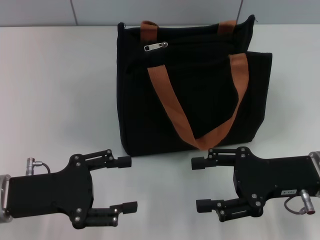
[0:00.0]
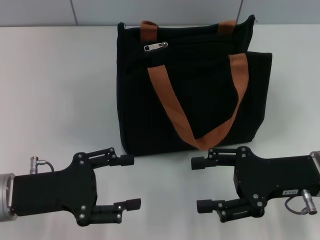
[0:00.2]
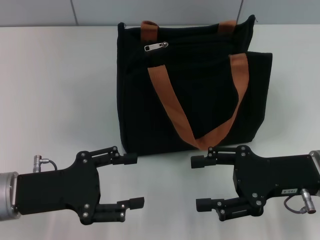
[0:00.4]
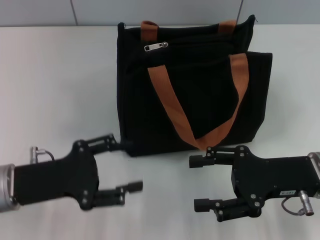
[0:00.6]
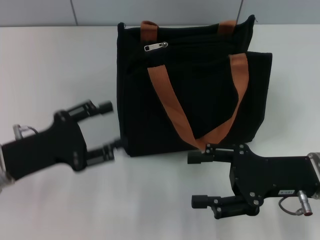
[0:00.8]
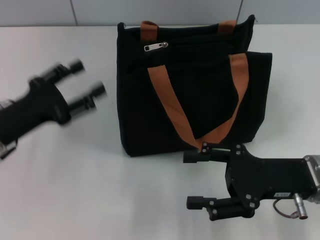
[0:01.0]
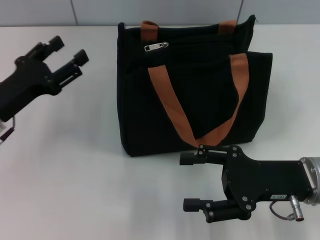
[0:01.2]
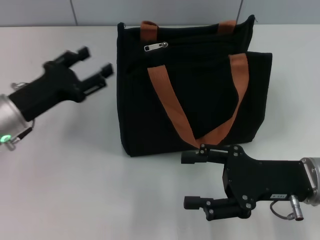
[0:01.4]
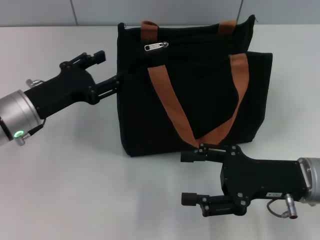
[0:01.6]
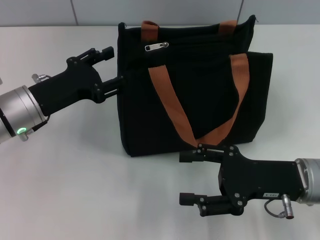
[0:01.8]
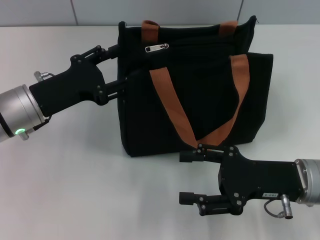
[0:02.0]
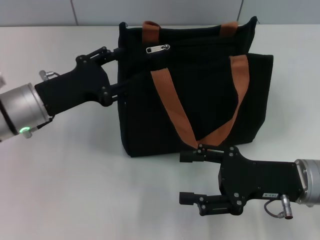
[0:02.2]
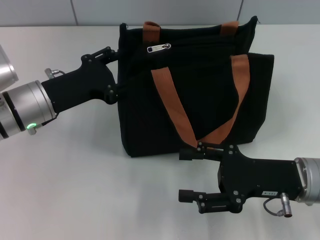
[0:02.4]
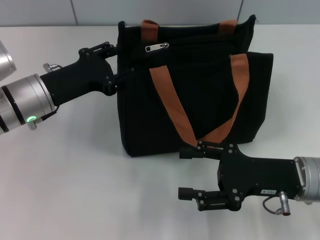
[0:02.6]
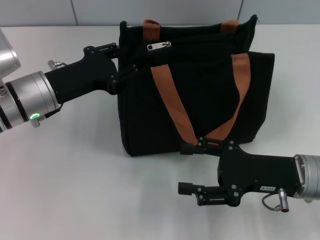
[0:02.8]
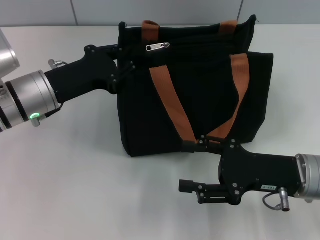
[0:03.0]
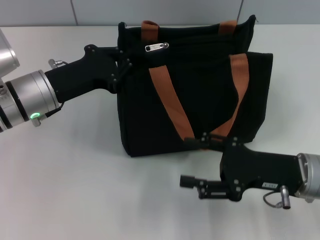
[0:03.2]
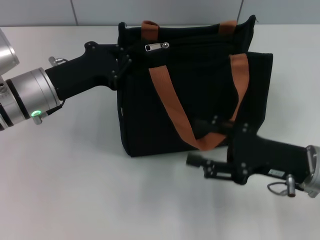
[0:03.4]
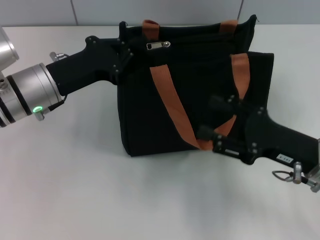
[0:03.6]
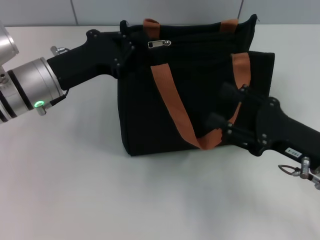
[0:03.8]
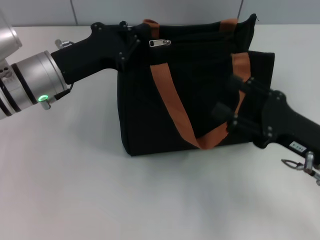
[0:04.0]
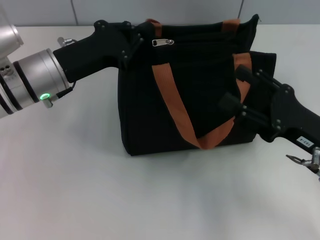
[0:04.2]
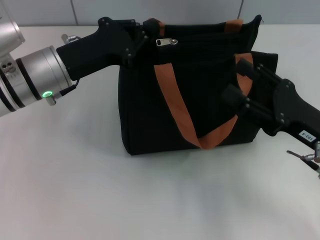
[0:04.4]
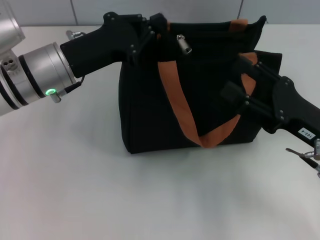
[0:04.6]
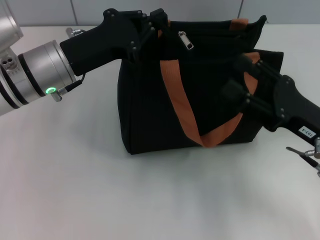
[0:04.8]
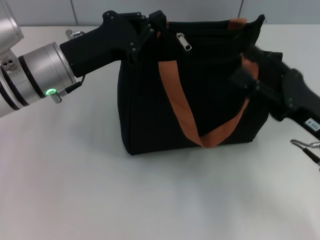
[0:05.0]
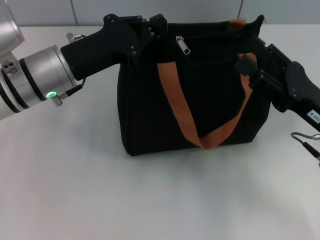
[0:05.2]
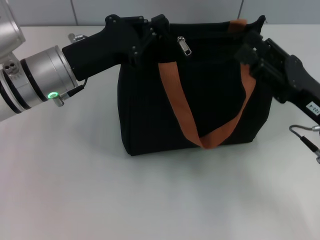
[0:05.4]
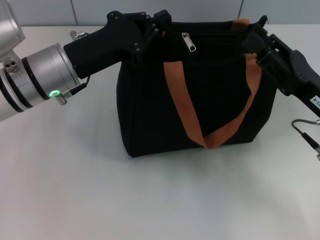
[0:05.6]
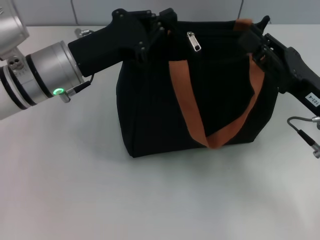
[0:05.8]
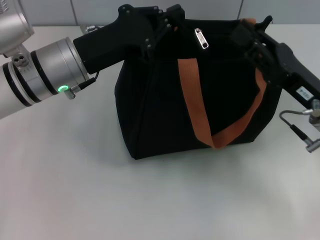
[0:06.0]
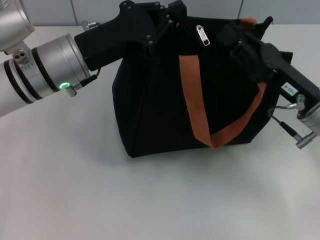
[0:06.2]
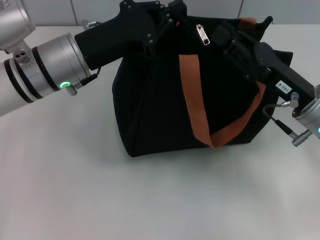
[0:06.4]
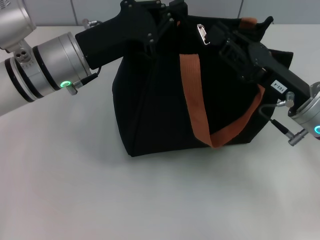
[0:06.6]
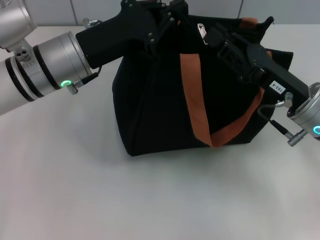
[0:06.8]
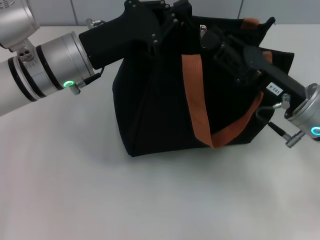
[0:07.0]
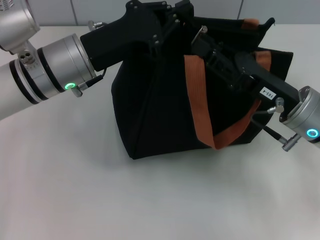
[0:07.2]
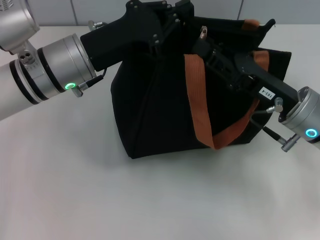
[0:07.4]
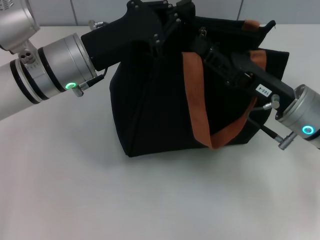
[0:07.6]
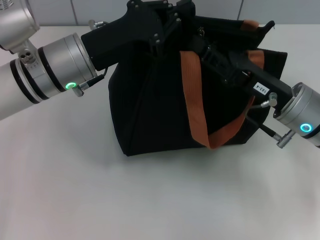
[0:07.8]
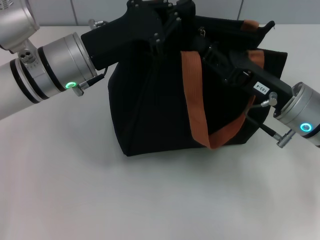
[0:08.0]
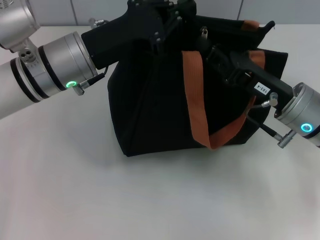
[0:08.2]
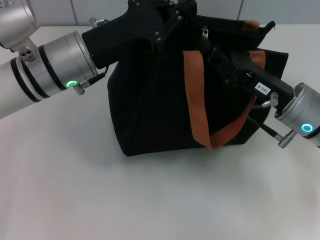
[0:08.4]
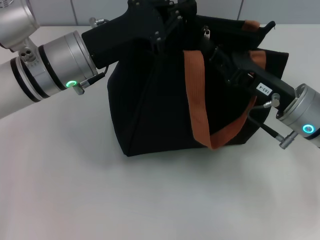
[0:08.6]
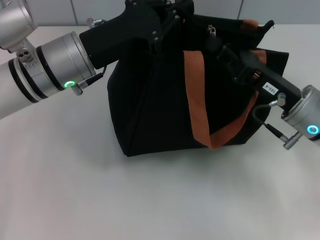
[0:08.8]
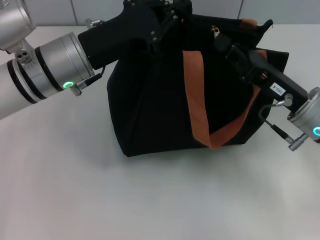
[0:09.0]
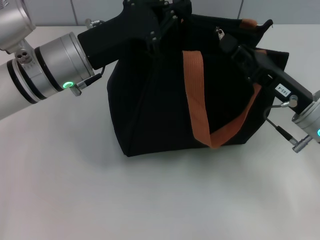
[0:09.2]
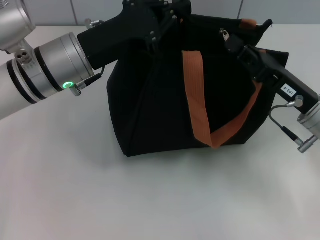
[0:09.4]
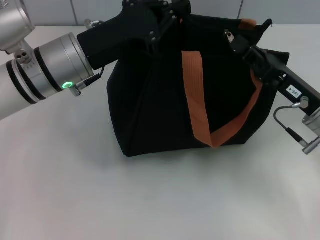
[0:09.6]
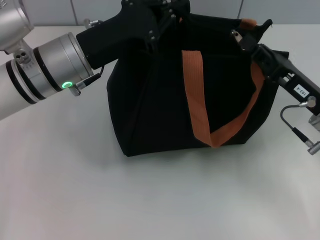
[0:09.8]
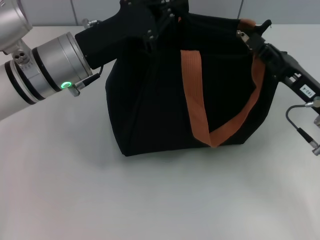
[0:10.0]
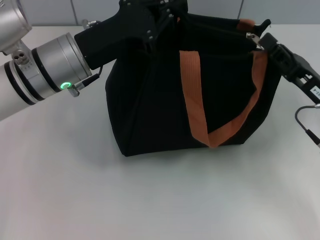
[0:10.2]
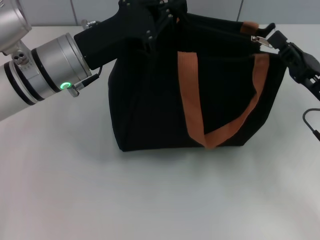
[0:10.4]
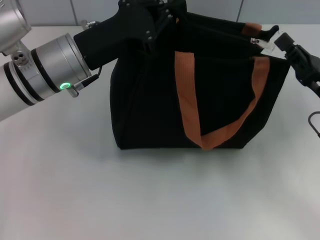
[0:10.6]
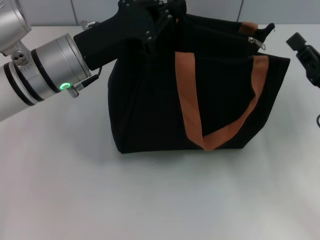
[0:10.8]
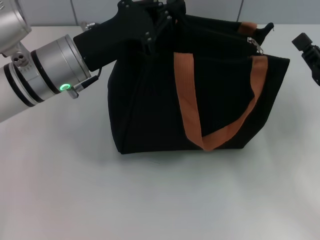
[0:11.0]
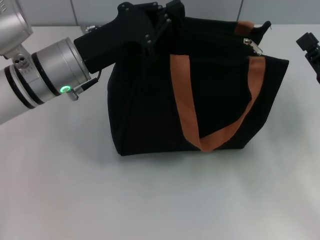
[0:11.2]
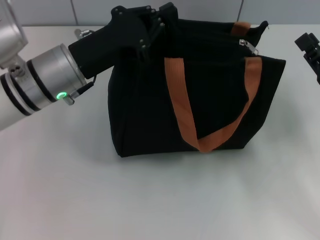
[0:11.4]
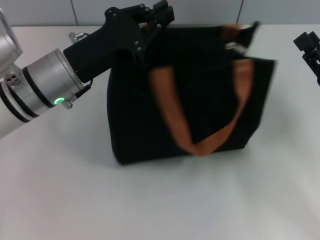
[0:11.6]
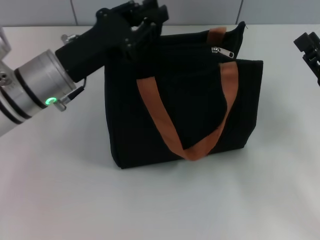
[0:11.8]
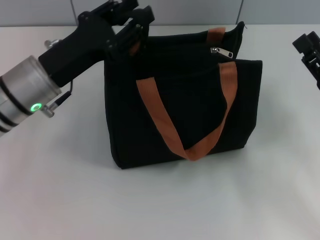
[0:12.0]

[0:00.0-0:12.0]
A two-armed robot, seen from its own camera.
Step, 0:00.0 to 0:10.6: Pull up the zipper with your right hand.
0:00.0 to 0:01.6: The left gripper shifts about 10 cm forward.
0:01.6 to 0:03.0: There are only small adjustments of the grippers.
0:03.0 to 0:04.4: The left gripper closes.
0:04.4 to 0:06.0: The right gripper closes.
0:06.0 to 0:09.0: The grippers make only small movements.
0:09.0 to 0:10.4: The right gripper goes some 5 cm to the right.
0:10.4 to 0:12.0: The right gripper opens. Meanwhile the left gripper moves approximately 5 cm, and opens its fingers.

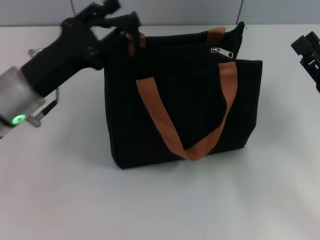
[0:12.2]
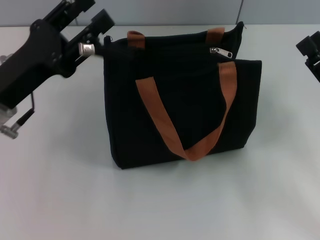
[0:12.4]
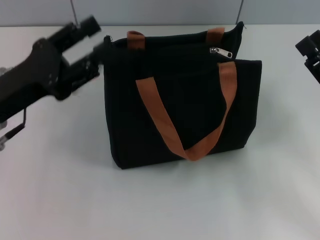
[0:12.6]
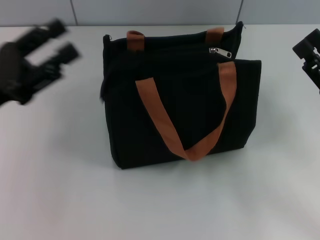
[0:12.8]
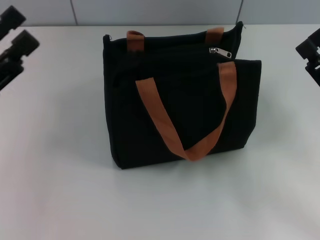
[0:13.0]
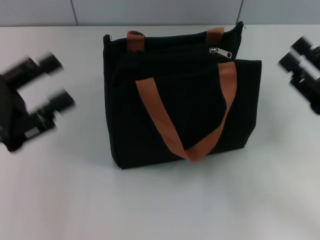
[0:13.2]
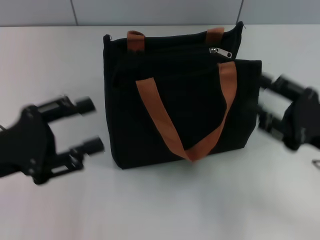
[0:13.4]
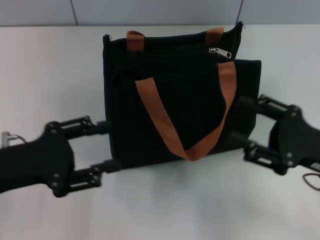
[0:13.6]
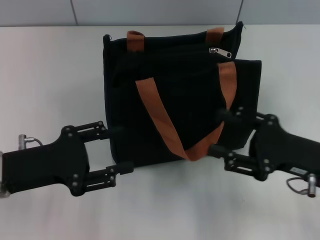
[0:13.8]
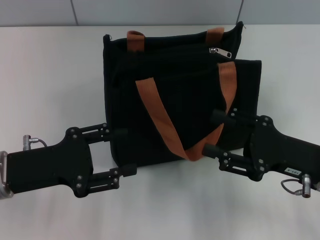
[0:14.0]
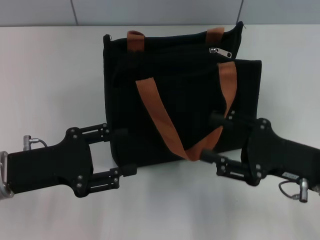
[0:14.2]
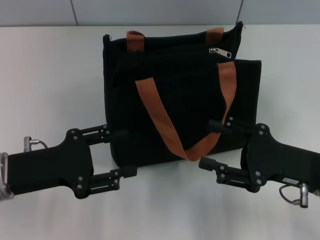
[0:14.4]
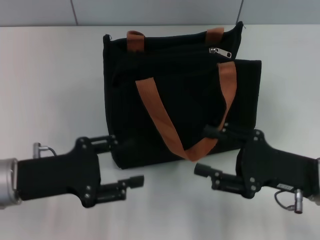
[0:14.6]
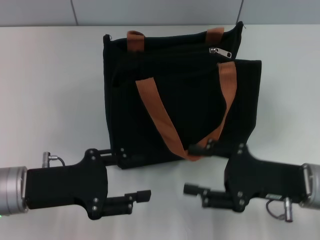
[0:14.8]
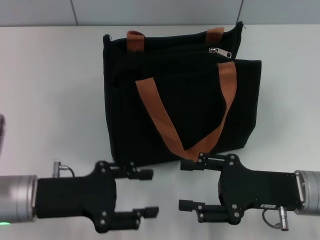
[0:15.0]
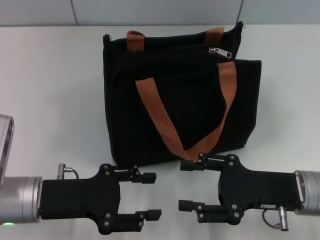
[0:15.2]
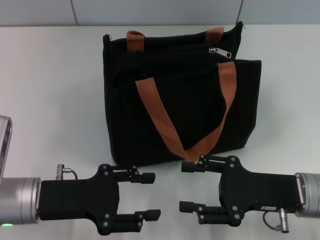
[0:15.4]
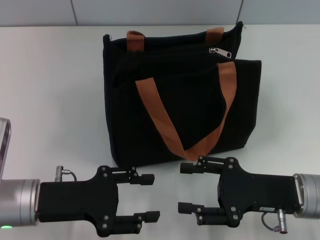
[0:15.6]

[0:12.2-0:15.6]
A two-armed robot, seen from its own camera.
0:12.2 to 0:13.8: The left gripper moves backward, some 5 cm.
